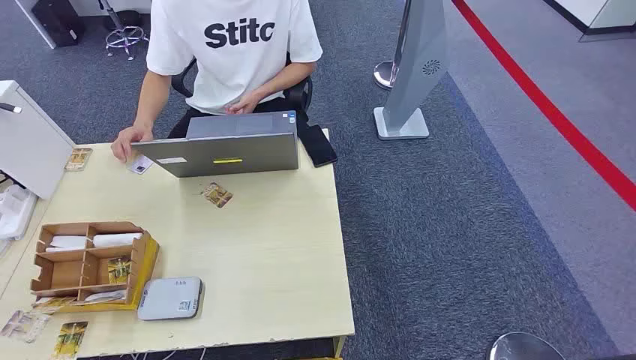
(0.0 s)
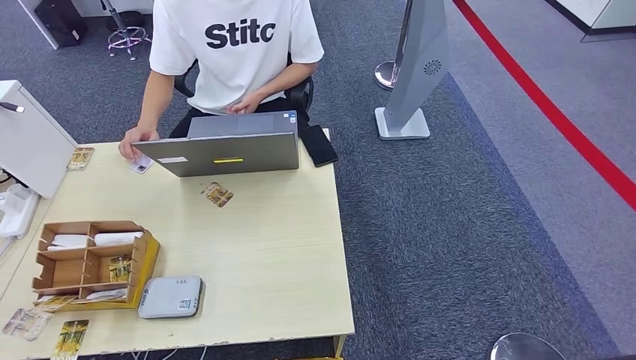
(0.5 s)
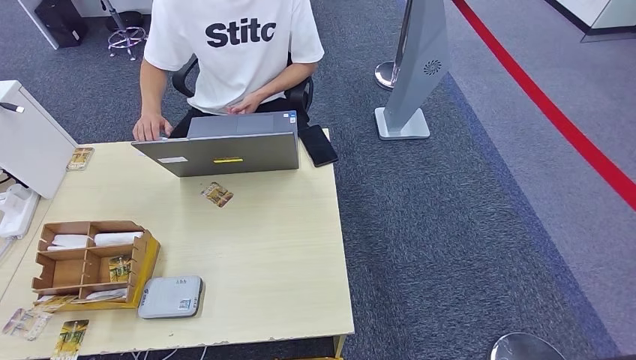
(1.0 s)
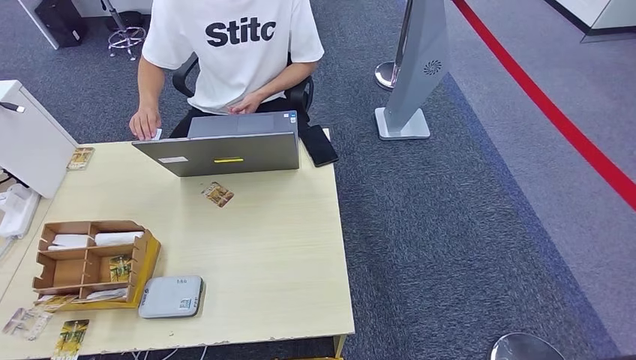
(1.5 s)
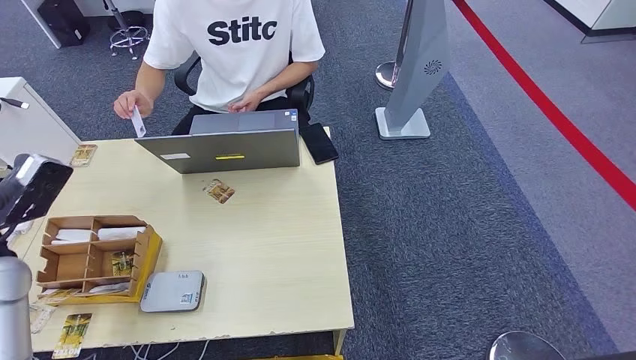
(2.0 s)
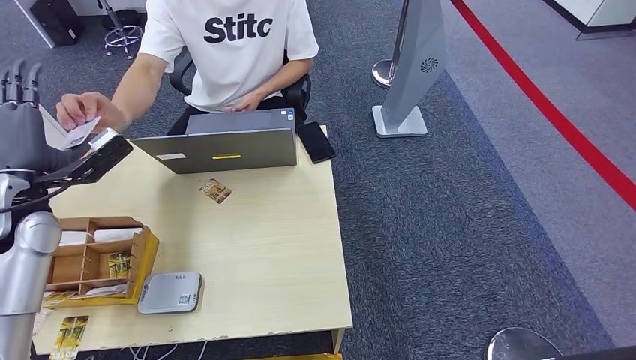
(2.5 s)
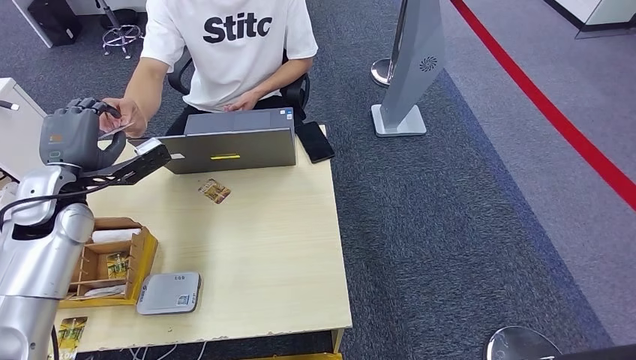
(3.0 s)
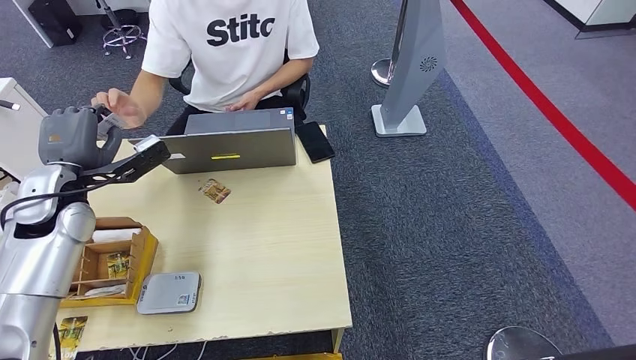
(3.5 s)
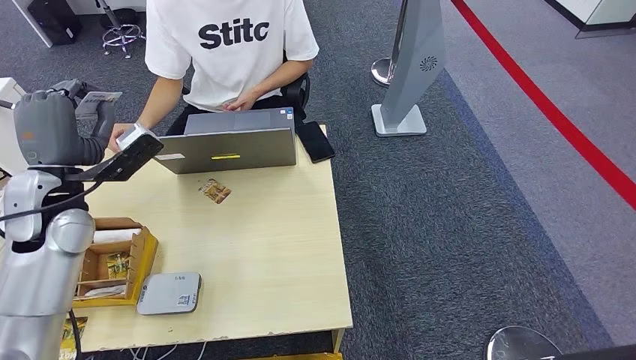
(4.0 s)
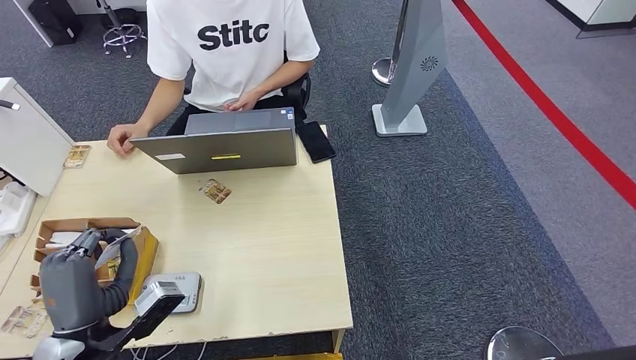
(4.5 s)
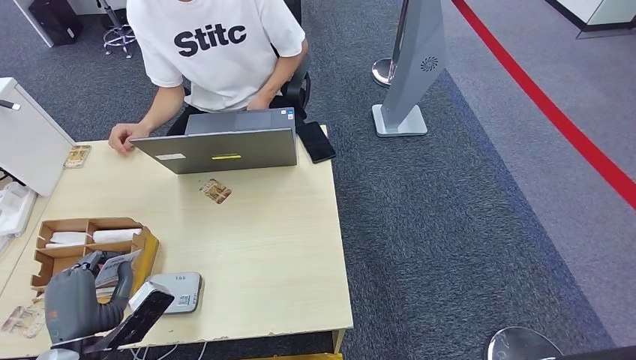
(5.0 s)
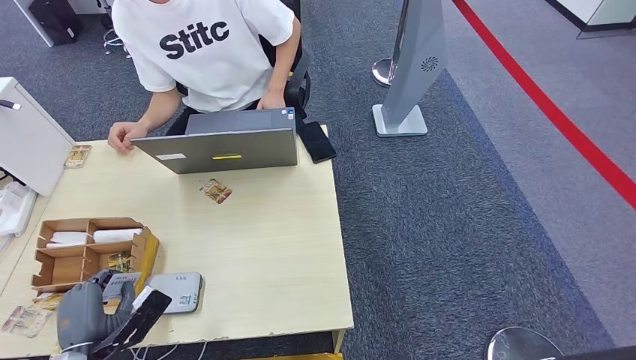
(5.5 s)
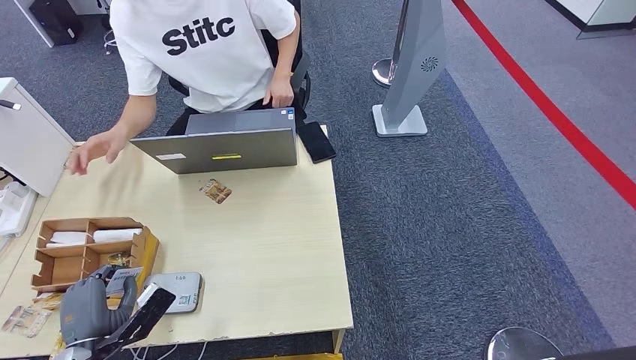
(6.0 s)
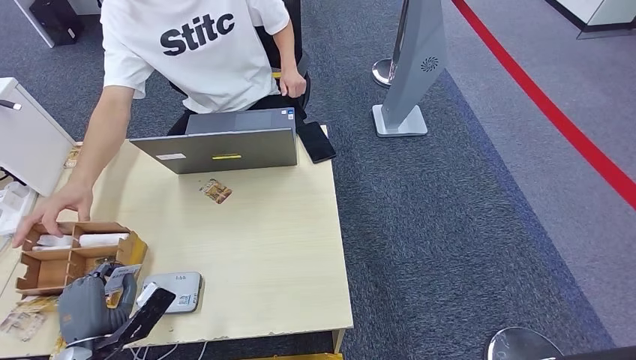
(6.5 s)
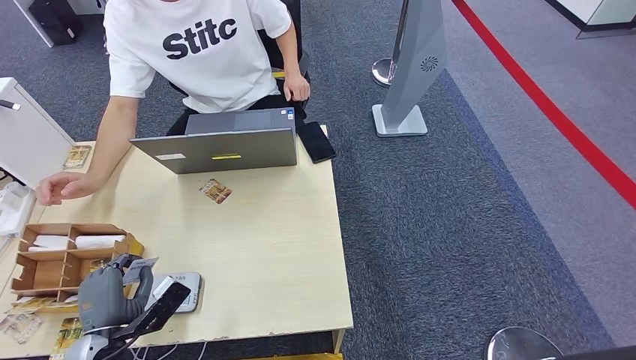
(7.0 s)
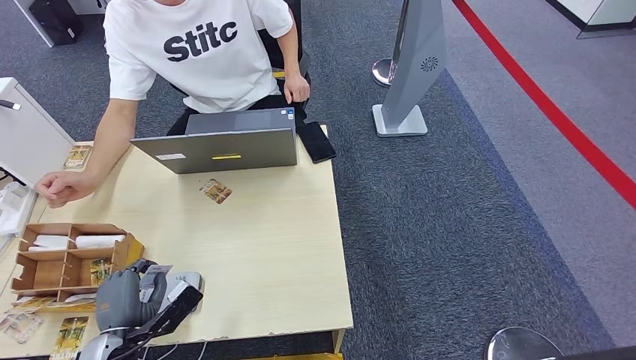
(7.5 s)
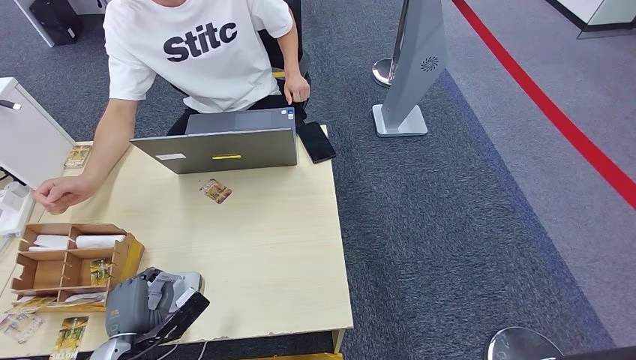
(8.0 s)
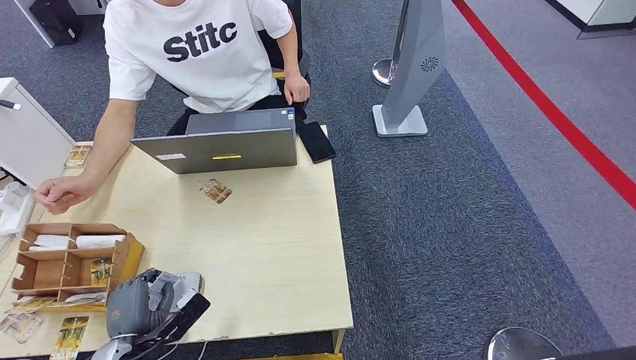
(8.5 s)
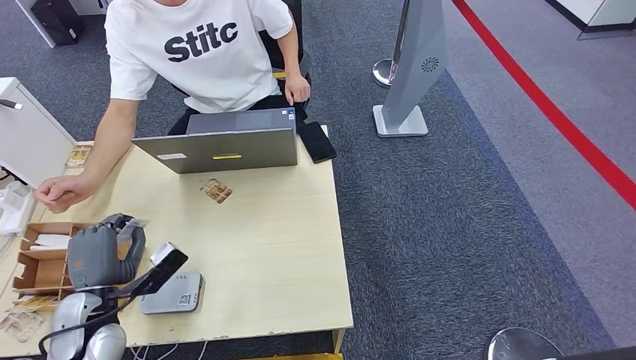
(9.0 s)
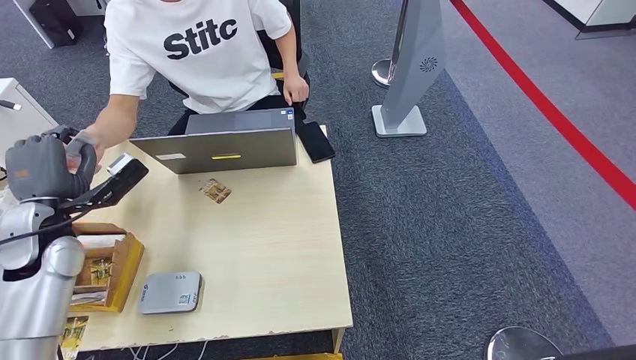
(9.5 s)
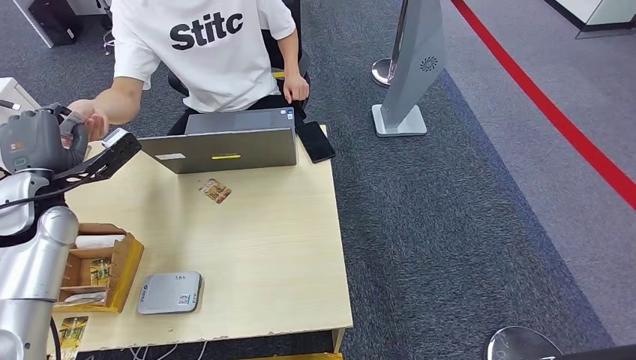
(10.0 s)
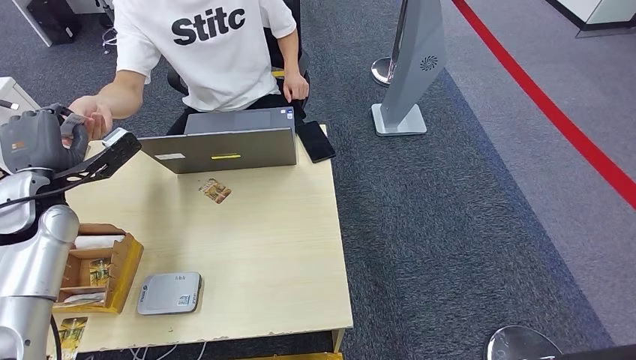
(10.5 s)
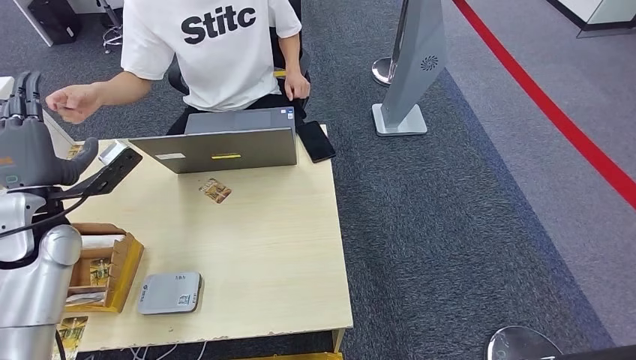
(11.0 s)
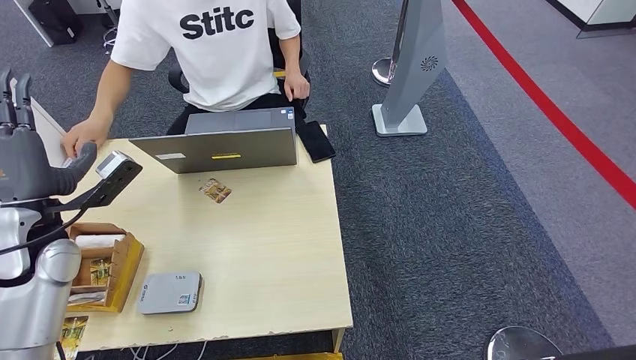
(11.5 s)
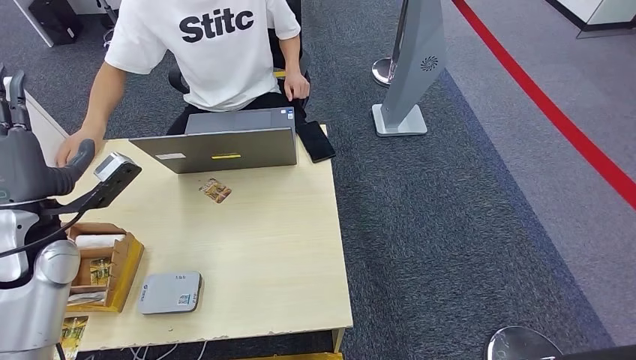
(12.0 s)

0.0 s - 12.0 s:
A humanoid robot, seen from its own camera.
Step, 0.0 s - 3.5 s: Take the ID card from the person's hand.
Step, 4.0 s - 8.5 s: Place the ID card on the card reader.
Step, 9.0 s - 10.5 s: Hand the ID card to the person.
4.0 s - 6.0 s: The left hand goes approximately 30 cm downward and backward.
6.0 s - 8.0 s: The left hand ends up some 5 cm from where it was.
8.0 s - 10.0 s: The left hand shifts approximately 30 cm upward and forward.
10.0 s - 12.0 s: The left hand heads backward, covering about 5 cm.

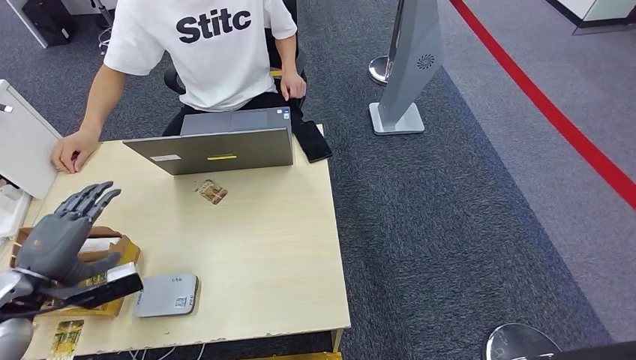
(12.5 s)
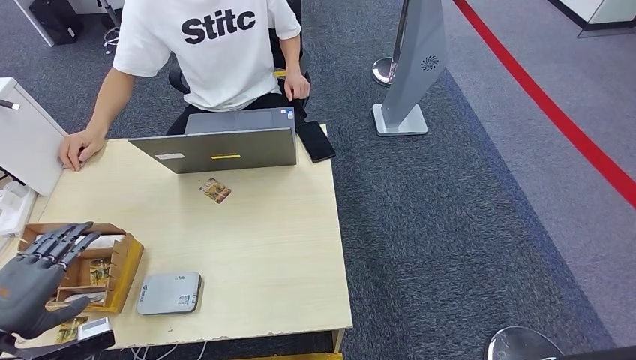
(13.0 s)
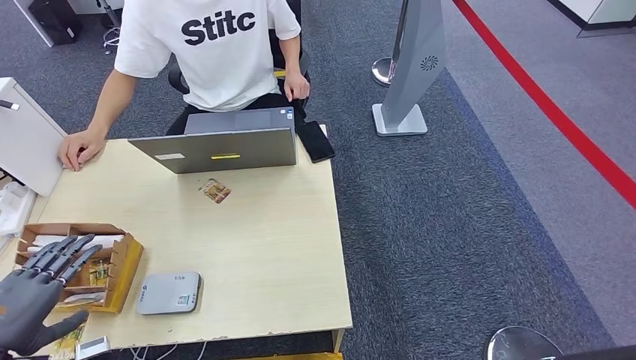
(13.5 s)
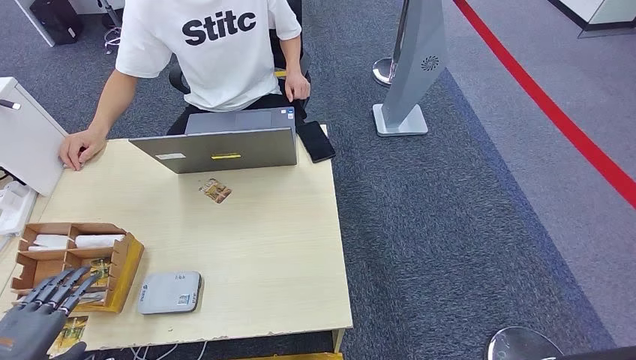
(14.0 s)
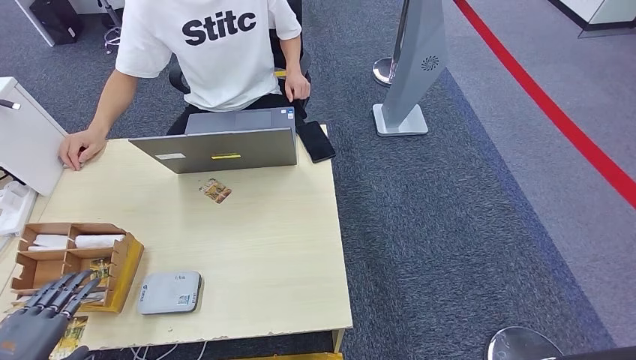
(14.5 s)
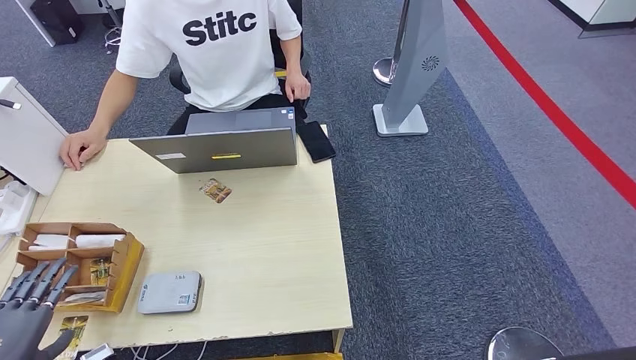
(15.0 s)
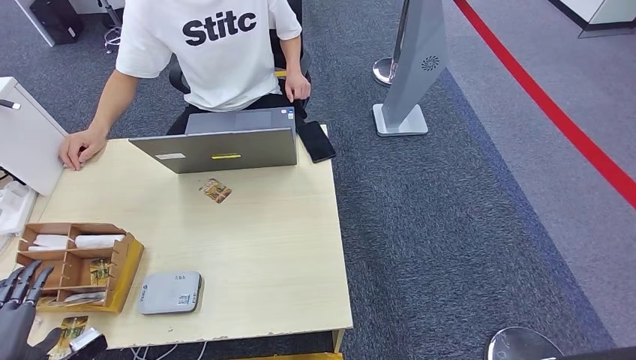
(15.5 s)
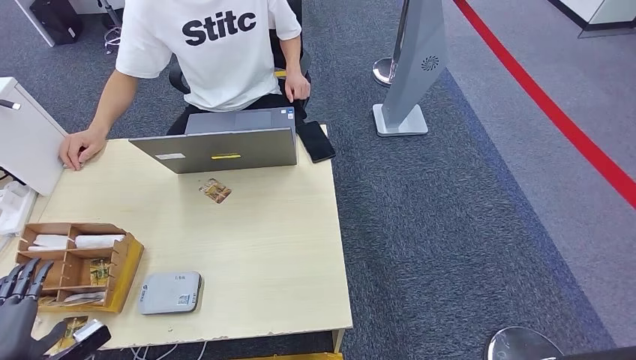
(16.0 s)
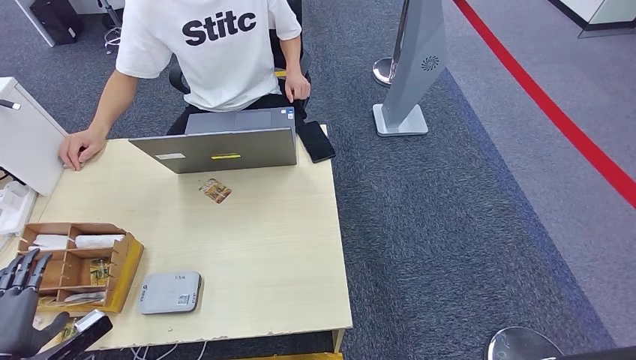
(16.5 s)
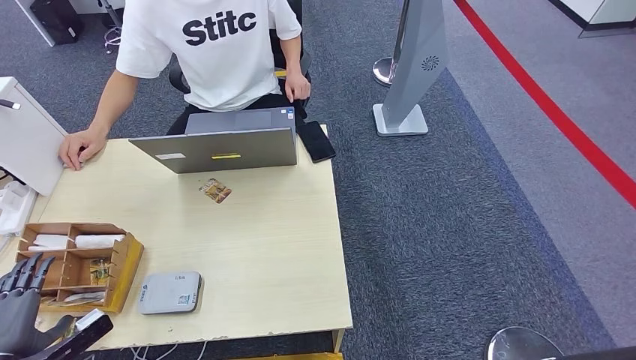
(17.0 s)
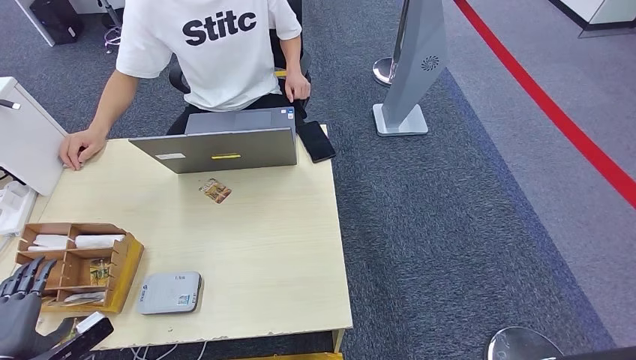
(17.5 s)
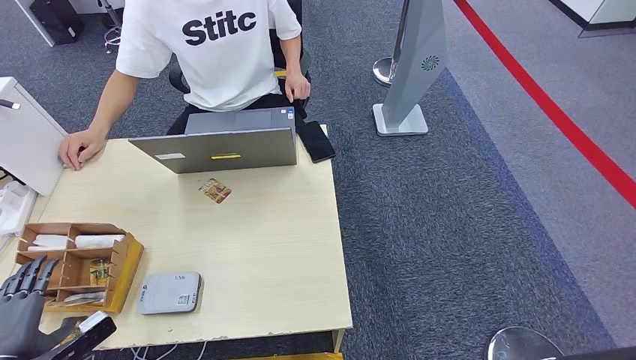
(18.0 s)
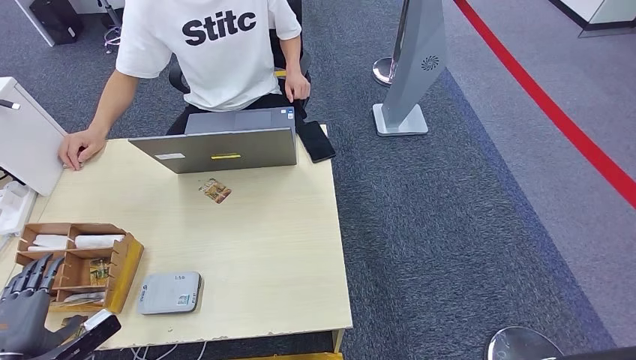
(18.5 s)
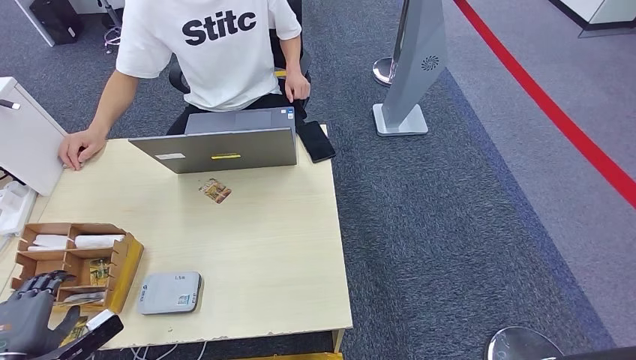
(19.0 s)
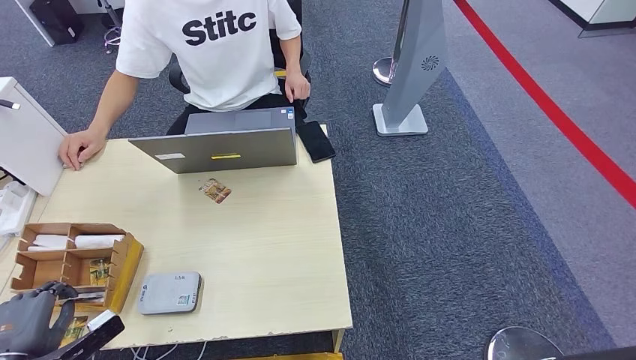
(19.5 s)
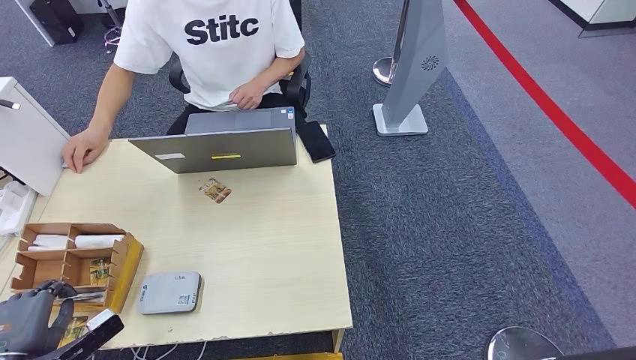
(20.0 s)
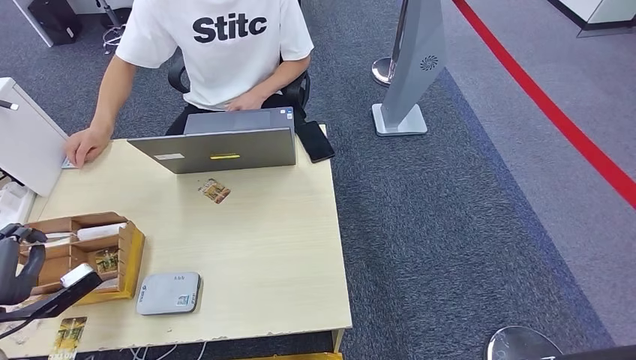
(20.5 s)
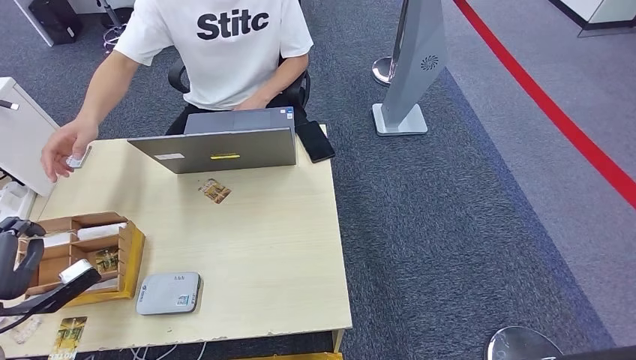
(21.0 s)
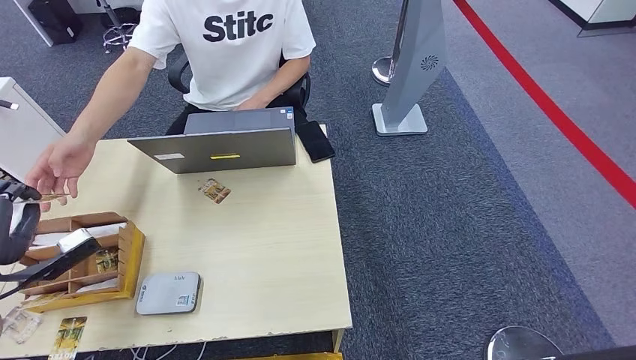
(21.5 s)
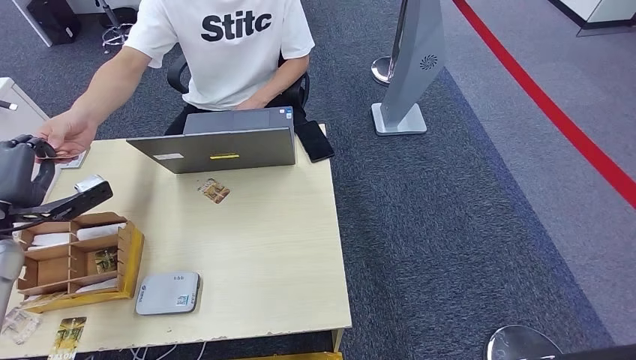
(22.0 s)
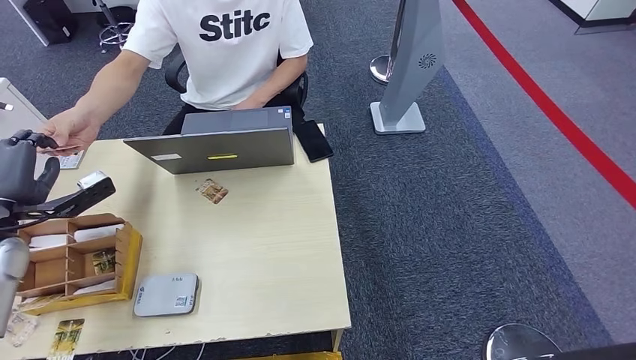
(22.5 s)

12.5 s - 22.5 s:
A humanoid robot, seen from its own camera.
Step, 12.5 s - 20.5 s: Pick up the room key from the key card box.
Step, 21.5 s - 22.5 s: Hand the room key to the person.
12.5 s - 14.5 s: The left hand moves backward, roughly 15 cm.
14.5 s - 16.5 s: The left hand changes place by roughly 5 cm.
16.5 s - 18.5 s: The hands make only small movements.
18.5 s - 20.5 s: The left hand goes approximately 10 cm upward and forward.
20.5 s - 22.5 s: The left hand shifts approximately 15 cm forward and upward.
